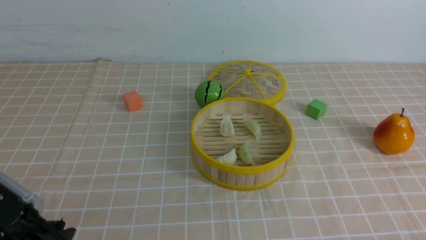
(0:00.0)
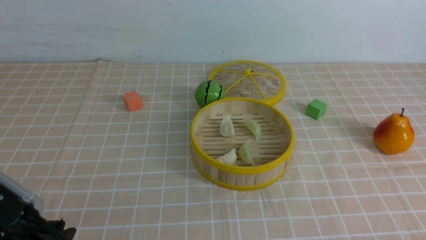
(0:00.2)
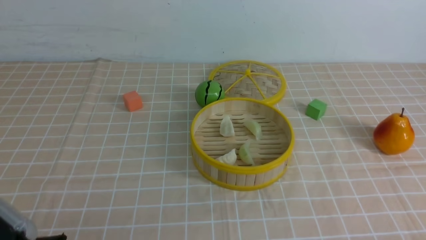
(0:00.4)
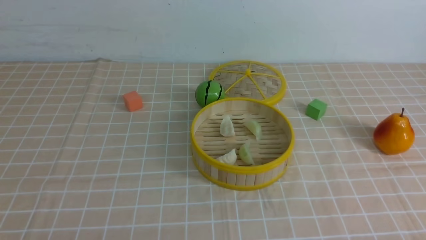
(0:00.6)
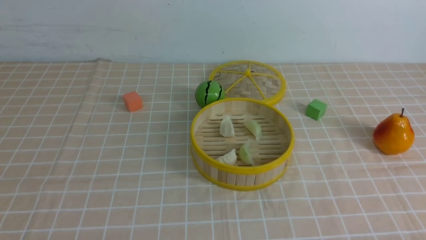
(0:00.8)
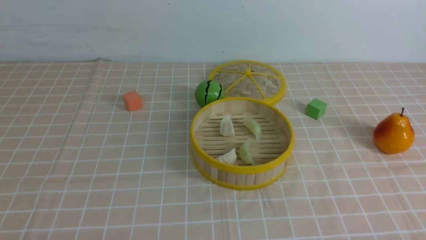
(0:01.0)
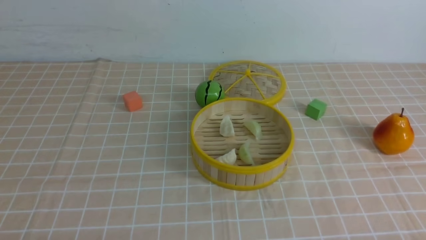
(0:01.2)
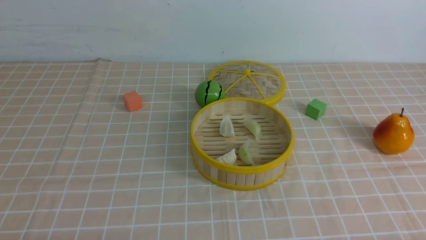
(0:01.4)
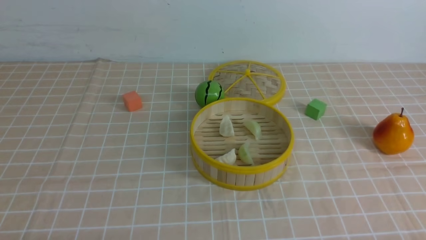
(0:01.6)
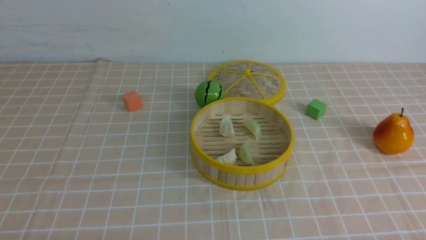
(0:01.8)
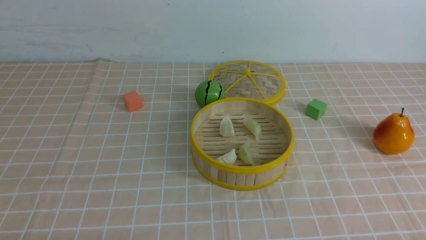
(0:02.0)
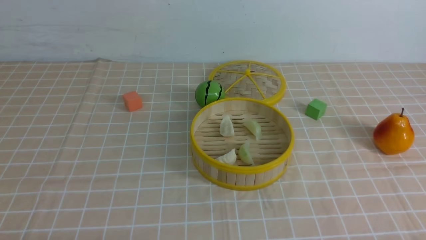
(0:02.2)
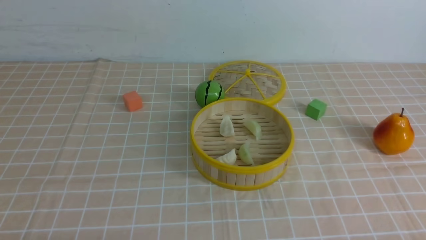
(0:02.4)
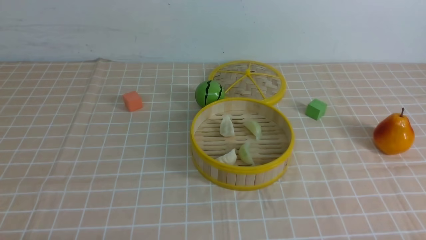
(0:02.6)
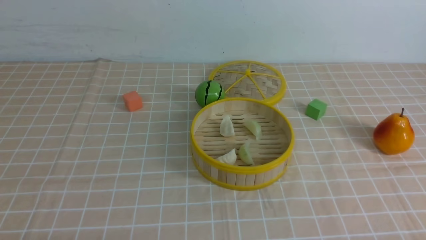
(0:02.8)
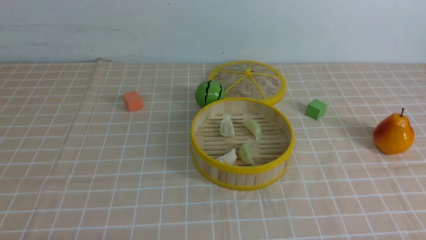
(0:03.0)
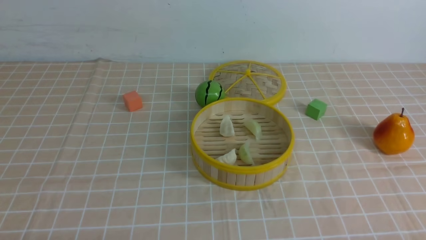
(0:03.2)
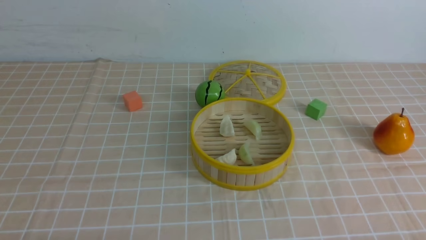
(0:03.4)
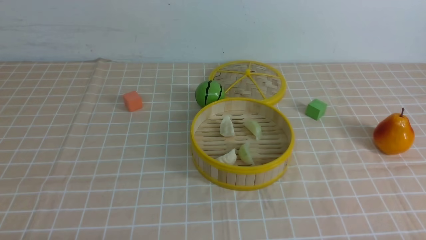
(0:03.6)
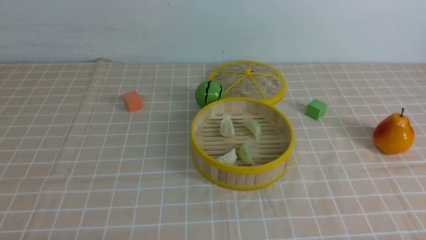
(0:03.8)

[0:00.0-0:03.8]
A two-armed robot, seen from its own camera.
Task of the whole recording: put the dumplings into the steamer on the table with the brown tablecloth.
0:00.0 to 0:01.2: The left gripper travels downward and backward by roughly 10 cm.
0:02.6 to 0:03.8: The two grippers keep their place.
